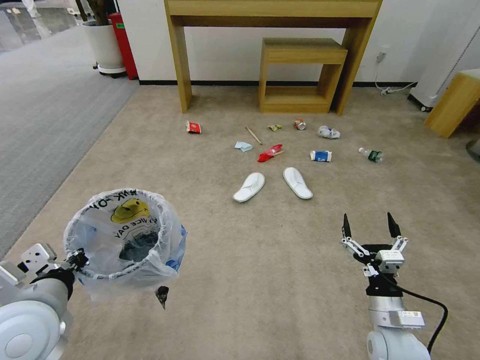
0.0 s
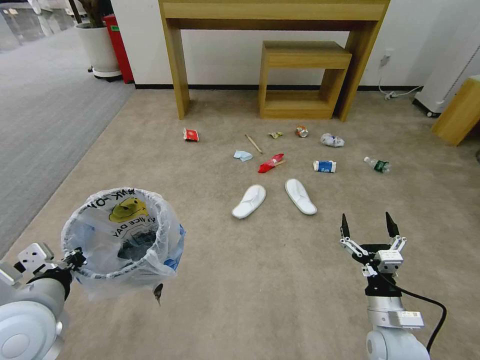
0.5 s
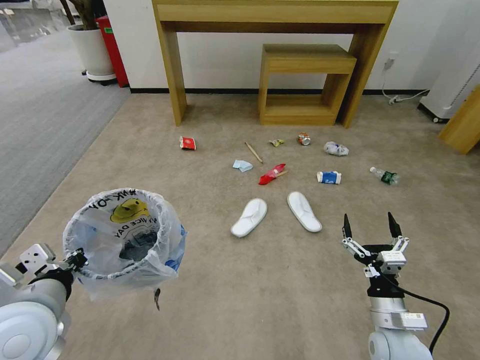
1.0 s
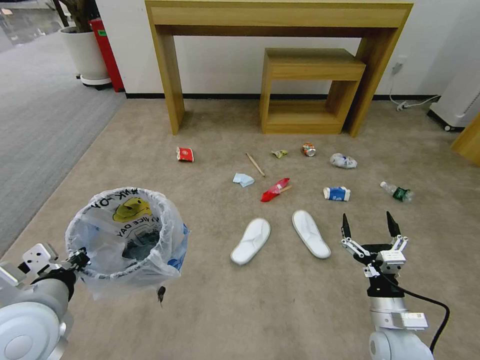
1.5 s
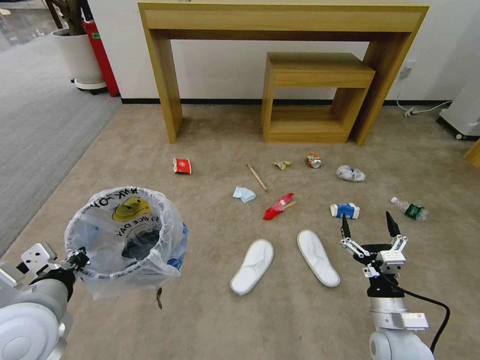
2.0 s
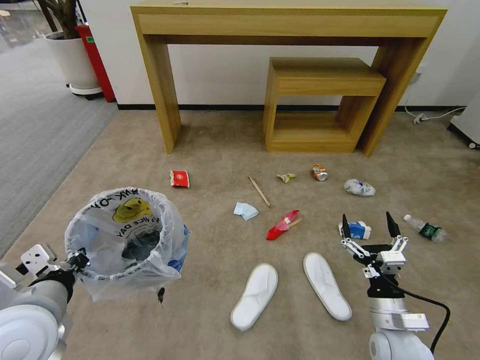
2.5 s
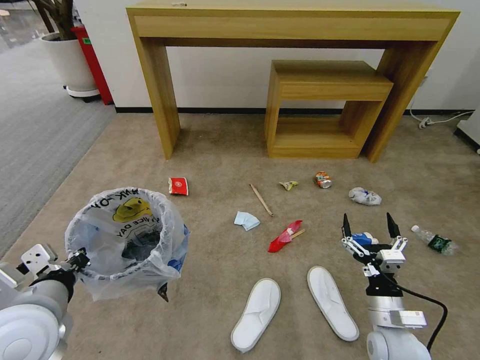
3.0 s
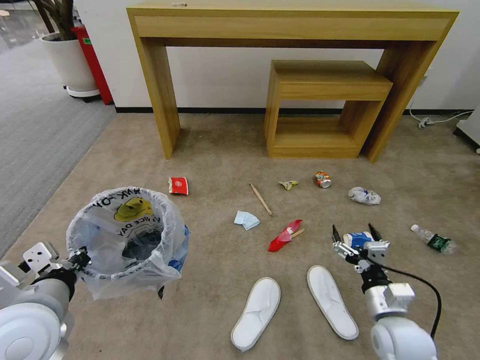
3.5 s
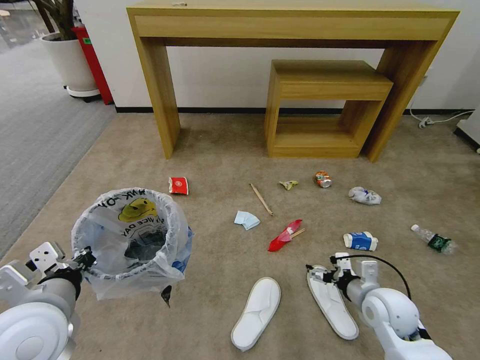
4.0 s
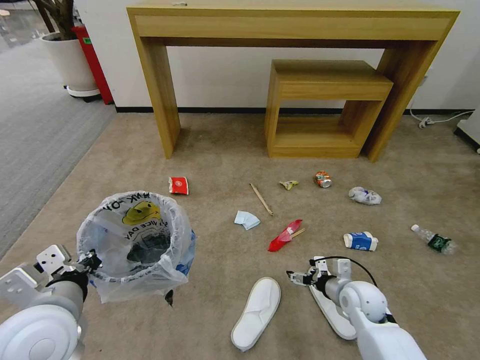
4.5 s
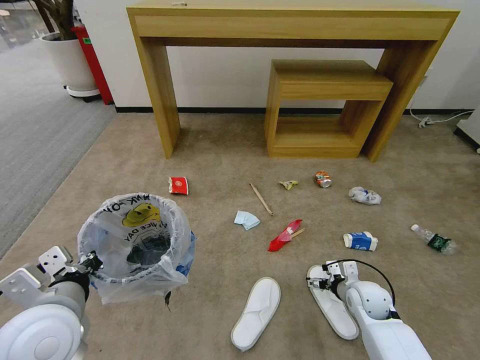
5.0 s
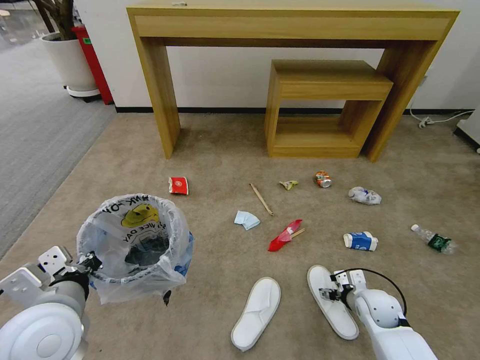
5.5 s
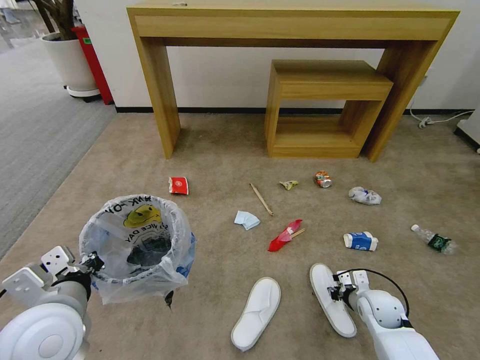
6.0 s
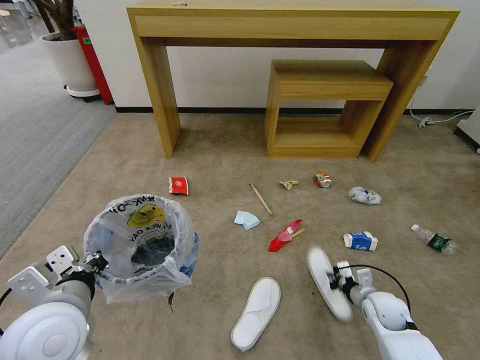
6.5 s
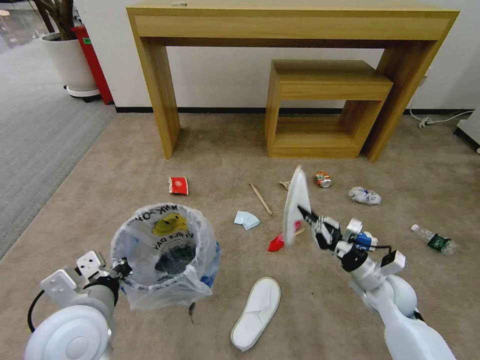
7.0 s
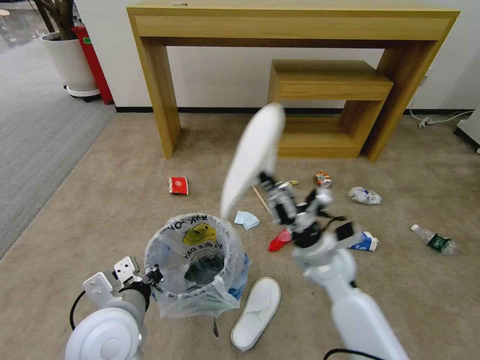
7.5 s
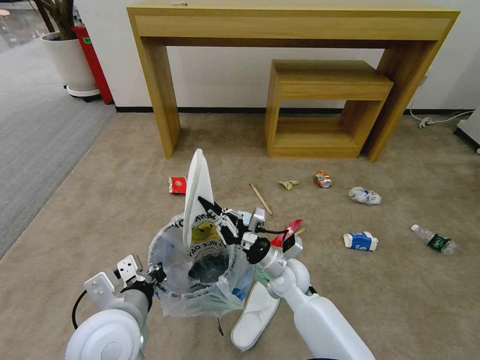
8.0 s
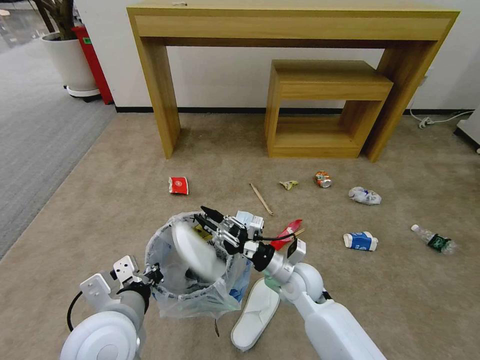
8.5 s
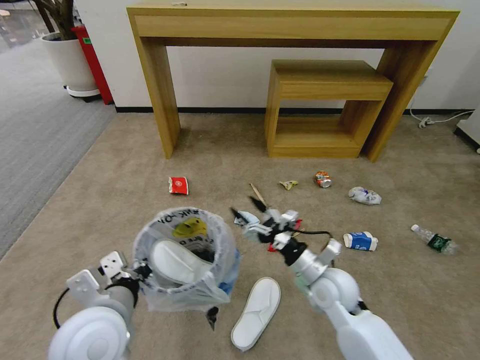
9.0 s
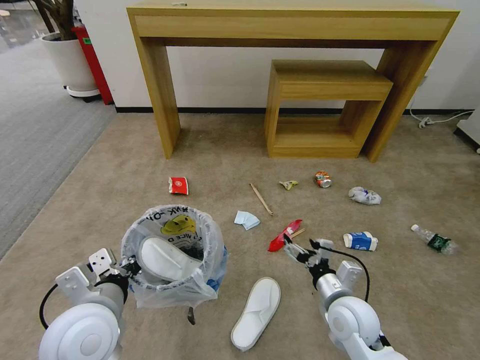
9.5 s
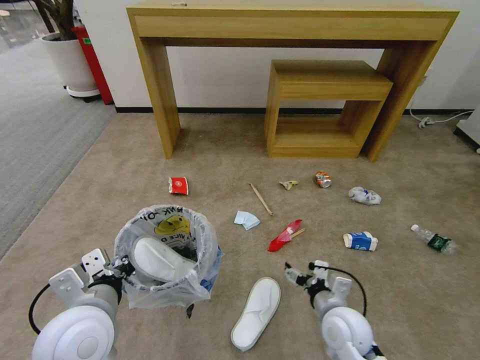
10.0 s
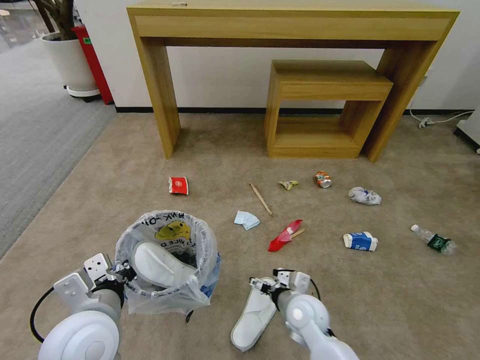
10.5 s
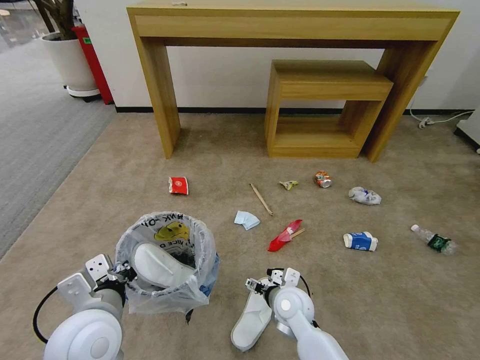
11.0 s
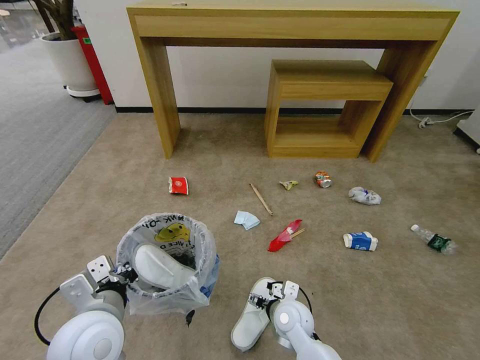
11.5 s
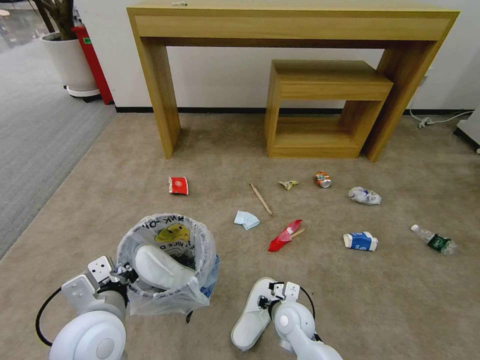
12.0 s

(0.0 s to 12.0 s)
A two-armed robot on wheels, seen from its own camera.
Task of the whole recording: Pick up the trash bin and place the garbage on the floor into it.
2.0 s - 4.0 s: The right gripper moves forward, some 5 cm.
4.0 s - 6.0 s: The right gripper heads downward, covering some 10 cm, and closes up.
6.0 s - 8.0 s: The left gripper heads to the right, covering about 10 cm; the right gripper goes about 25 cm to the left.
8.0 s - 10.0 s: The right gripper moves backward and to the right, roughly 15 cm, and opens up.
10.0 s - 12.0 s: The right gripper shifts approximately 10 cm to the left and downward, and closes.

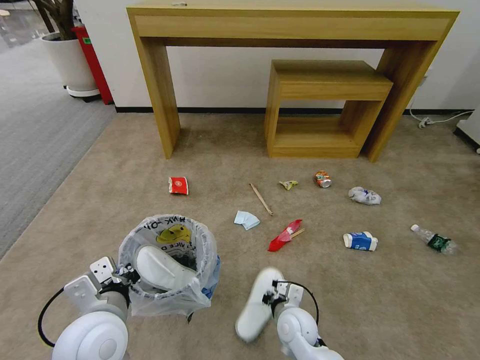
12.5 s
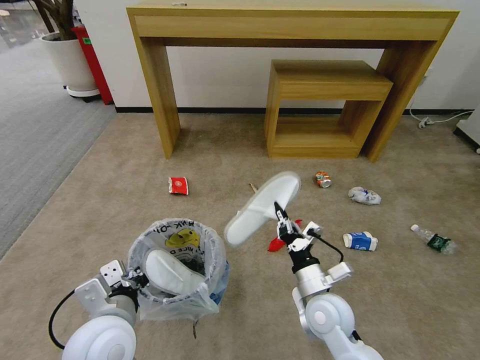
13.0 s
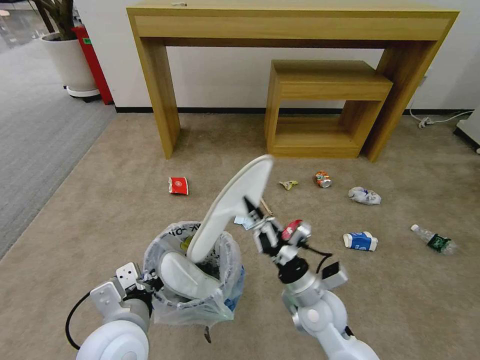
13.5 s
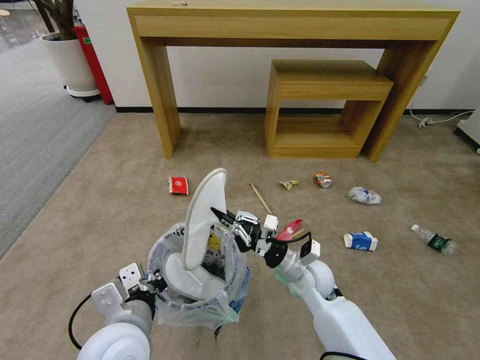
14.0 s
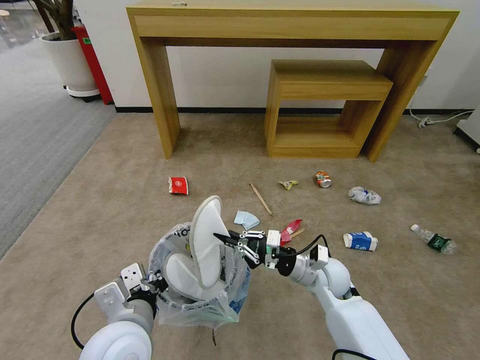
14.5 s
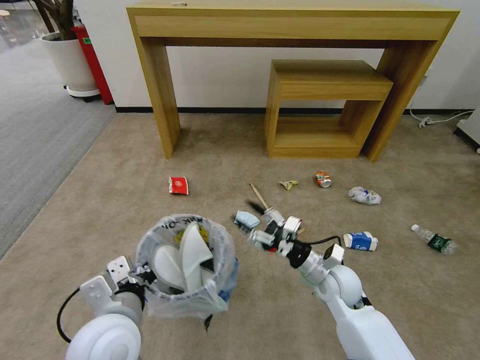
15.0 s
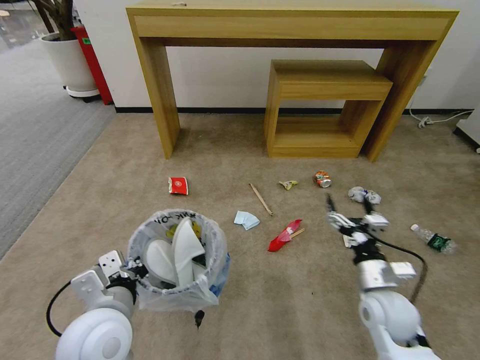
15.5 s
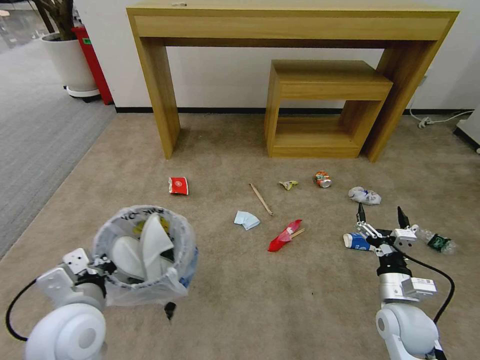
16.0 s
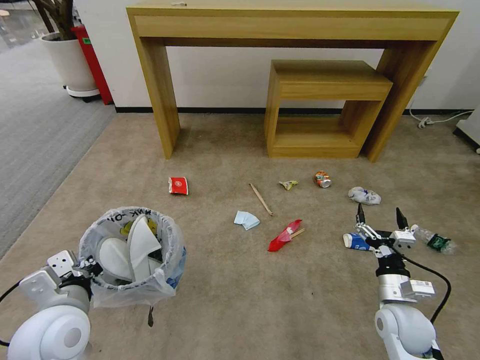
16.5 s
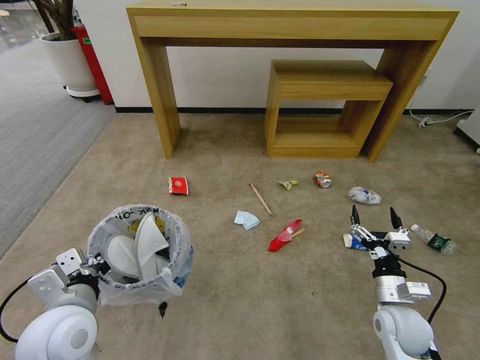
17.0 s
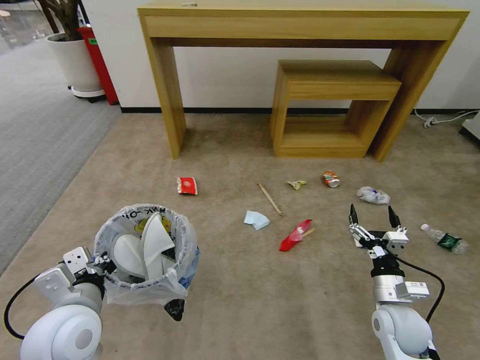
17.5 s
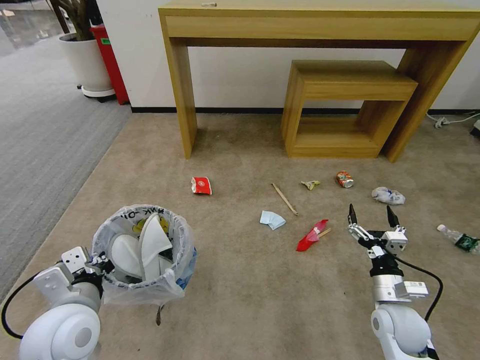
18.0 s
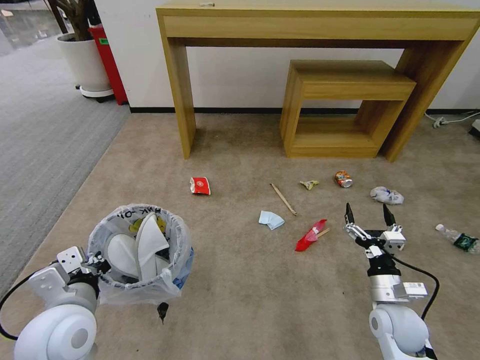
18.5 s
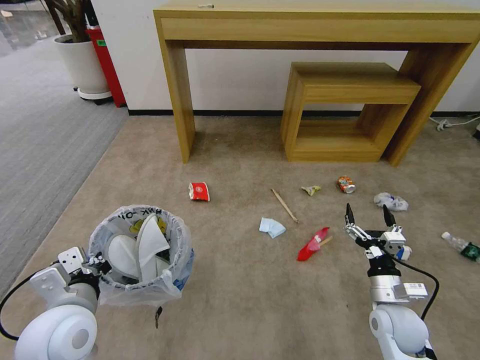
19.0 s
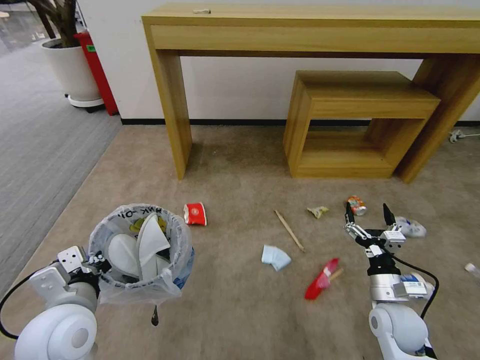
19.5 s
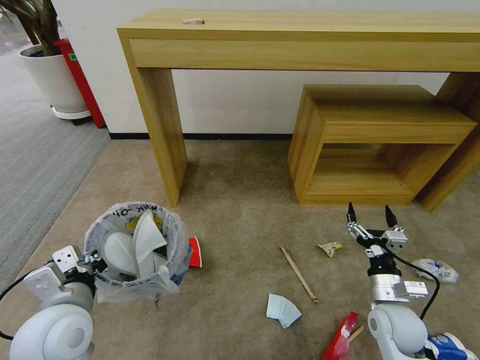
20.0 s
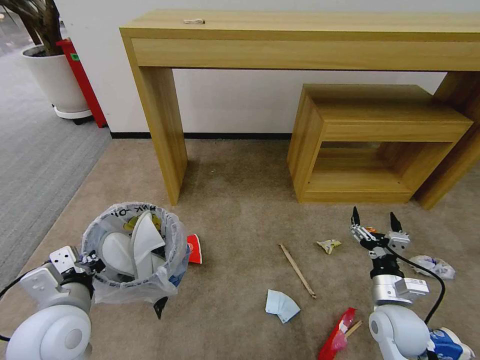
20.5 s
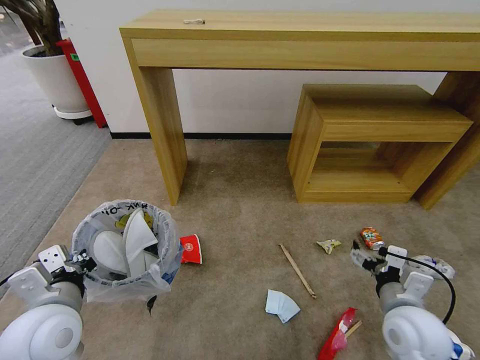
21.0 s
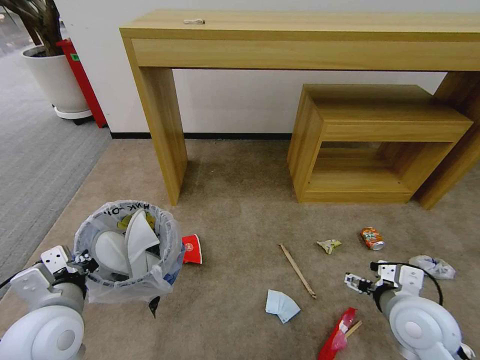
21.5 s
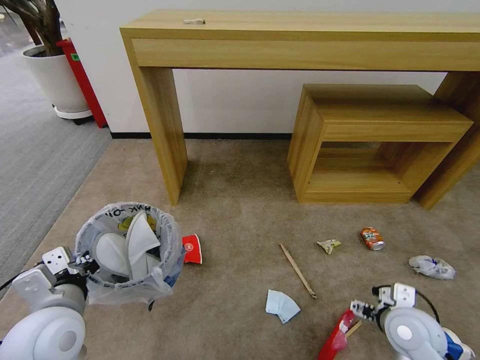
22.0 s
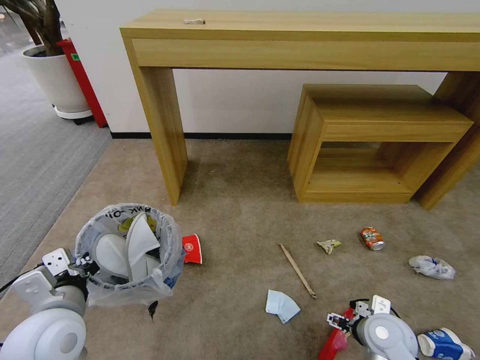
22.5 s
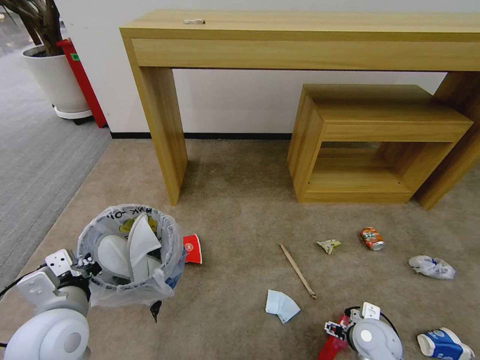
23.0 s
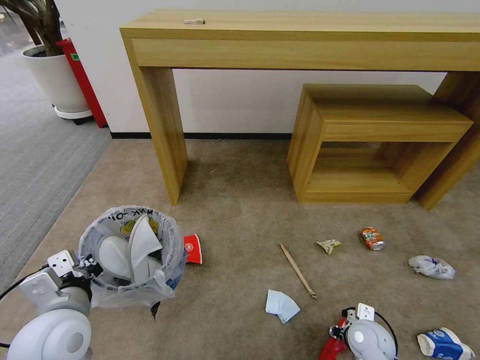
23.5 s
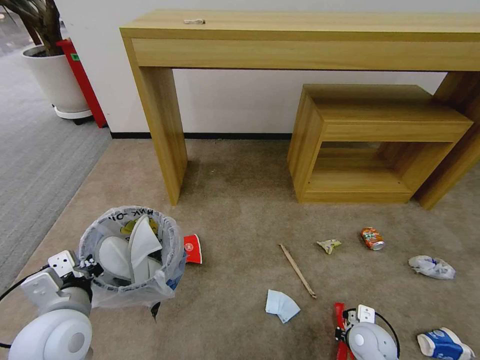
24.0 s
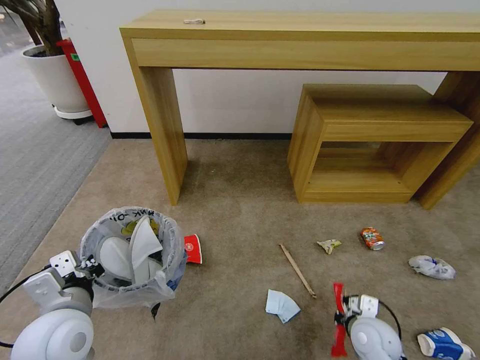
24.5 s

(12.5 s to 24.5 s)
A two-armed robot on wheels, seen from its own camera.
Task of the whole recording: Pick up the trash bin and place the garbage on the floor into it.
12.5 s - 14.5 s: The right gripper travels upward, forward and to the right by roughly 15 cm.
14.5 s - 16.5 s: The left gripper heads to the left, covering some 10 cm. Meanwhile the right gripper moves to the right and backward, some 15 cm, and opens its fingers.
20.5 s - 22.5 s: The right gripper travels upward and back again, approximately 10 cm each way.
22.5 s - 24.5 s: The right gripper closes up.

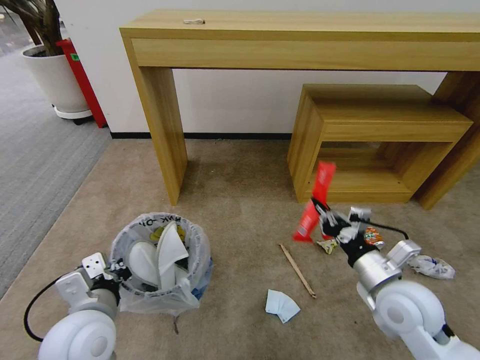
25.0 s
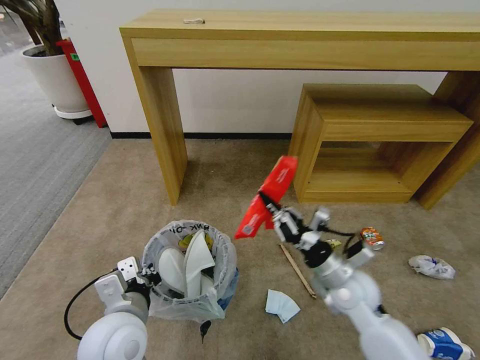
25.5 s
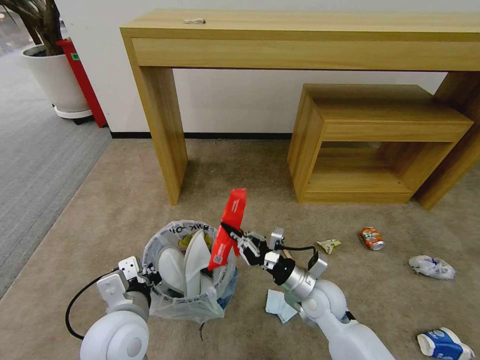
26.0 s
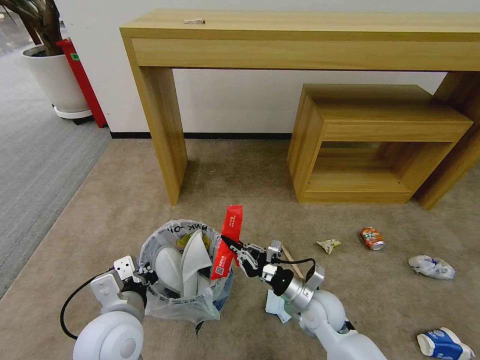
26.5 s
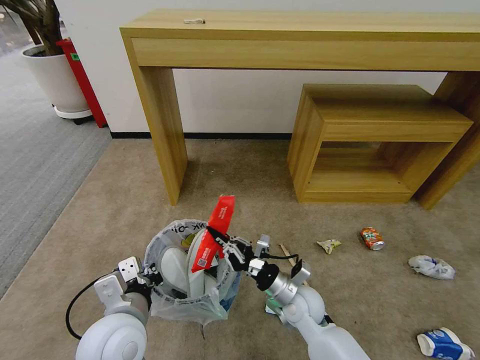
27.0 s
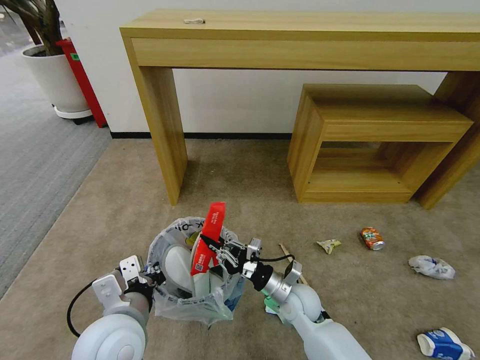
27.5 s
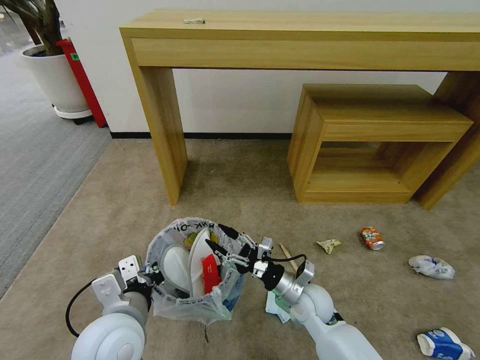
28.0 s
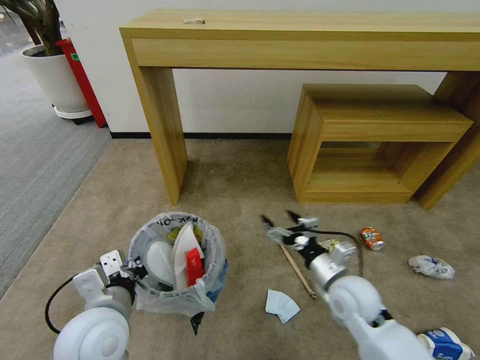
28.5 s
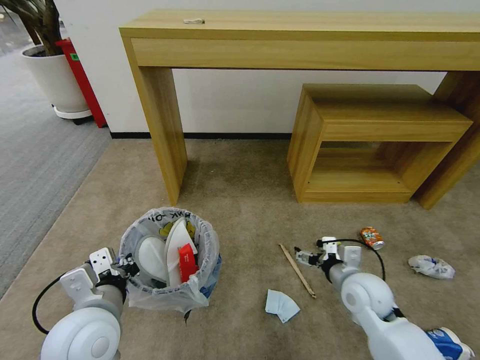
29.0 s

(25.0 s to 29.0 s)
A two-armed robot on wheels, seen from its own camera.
Task of the whole recording: Pick up the trash bin and place the garbage on the floor into it.
25.0 s - 27.0 s: The left gripper changes place by some 5 cm. The right gripper goes some 20 cm to the left and downward.
27.0 s - 29.0 s: The right gripper goes approximately 15 cm to the right and upward, and opens up.
